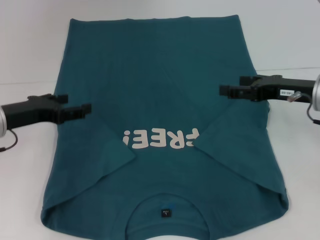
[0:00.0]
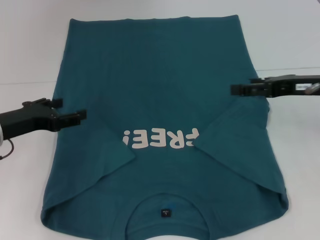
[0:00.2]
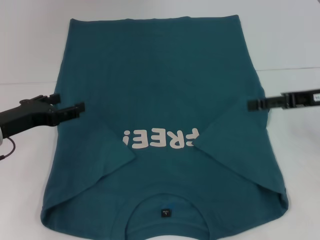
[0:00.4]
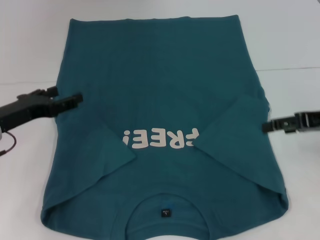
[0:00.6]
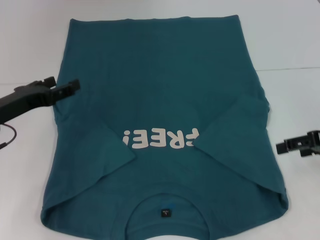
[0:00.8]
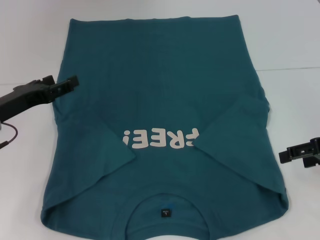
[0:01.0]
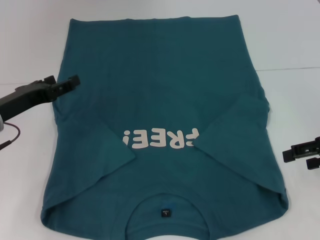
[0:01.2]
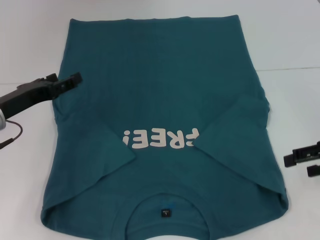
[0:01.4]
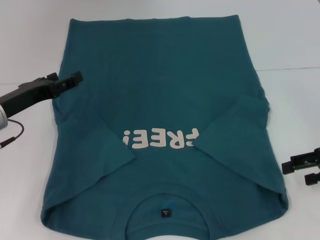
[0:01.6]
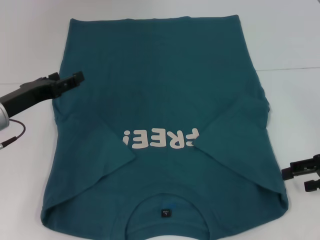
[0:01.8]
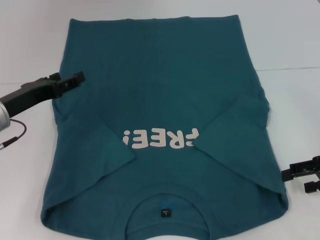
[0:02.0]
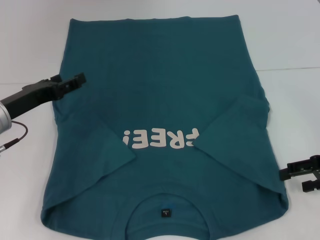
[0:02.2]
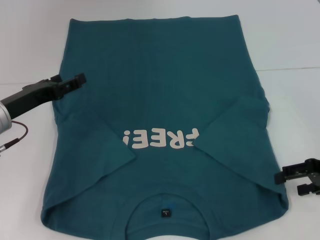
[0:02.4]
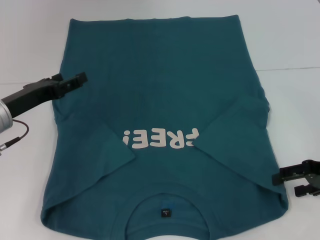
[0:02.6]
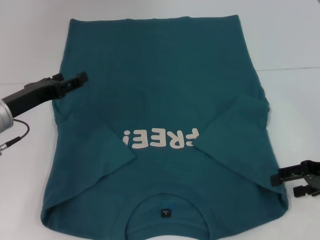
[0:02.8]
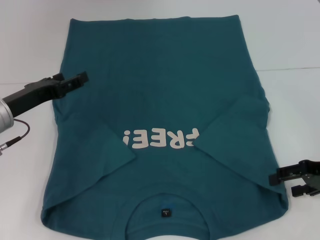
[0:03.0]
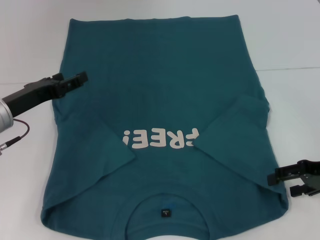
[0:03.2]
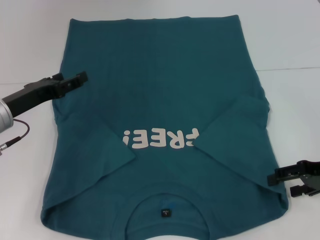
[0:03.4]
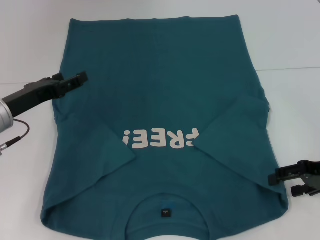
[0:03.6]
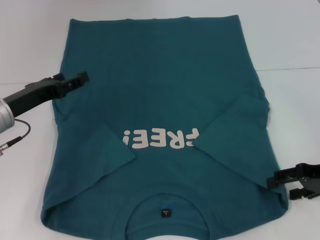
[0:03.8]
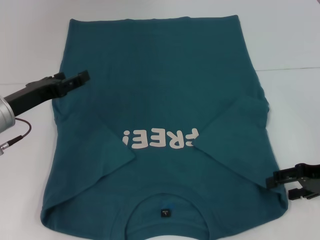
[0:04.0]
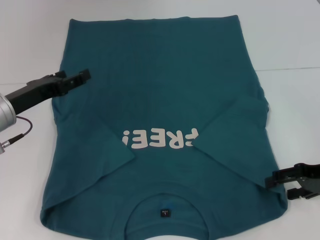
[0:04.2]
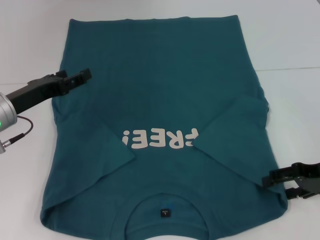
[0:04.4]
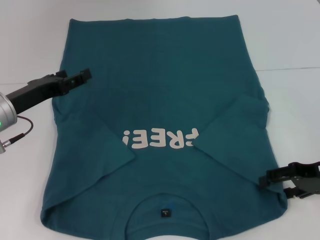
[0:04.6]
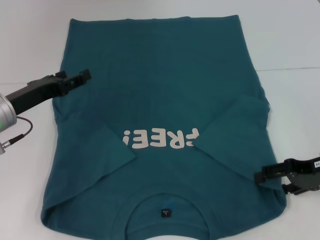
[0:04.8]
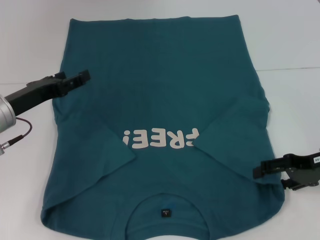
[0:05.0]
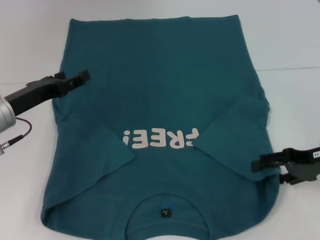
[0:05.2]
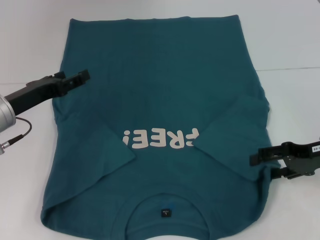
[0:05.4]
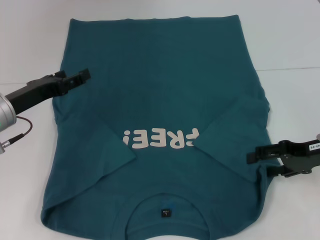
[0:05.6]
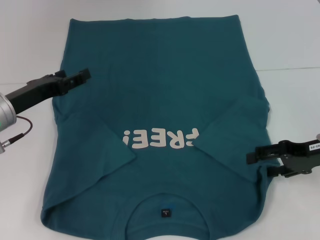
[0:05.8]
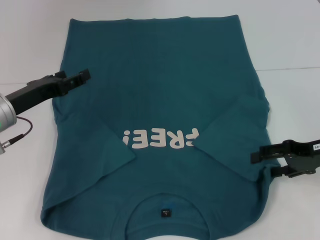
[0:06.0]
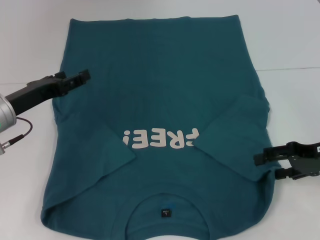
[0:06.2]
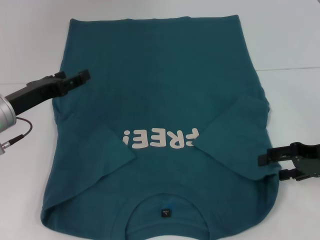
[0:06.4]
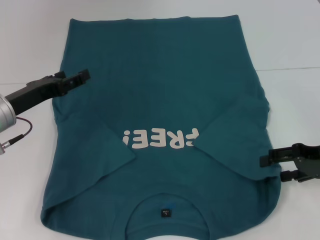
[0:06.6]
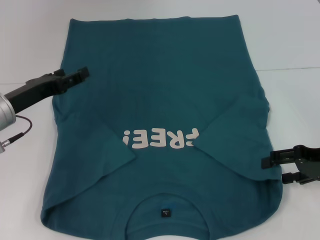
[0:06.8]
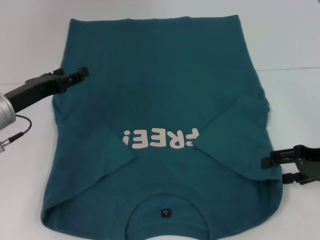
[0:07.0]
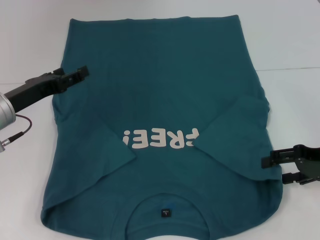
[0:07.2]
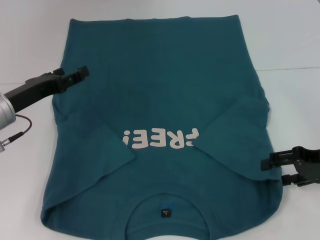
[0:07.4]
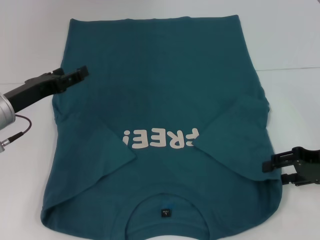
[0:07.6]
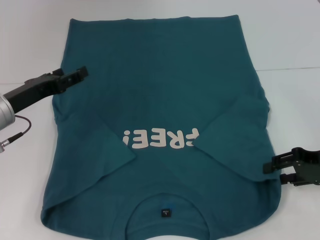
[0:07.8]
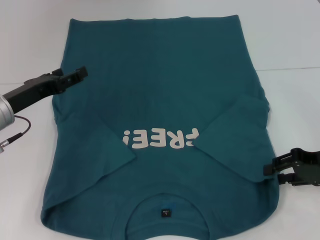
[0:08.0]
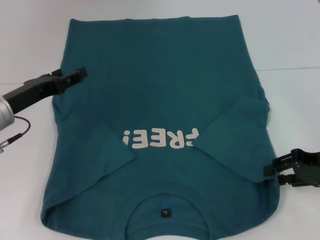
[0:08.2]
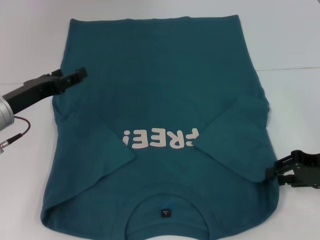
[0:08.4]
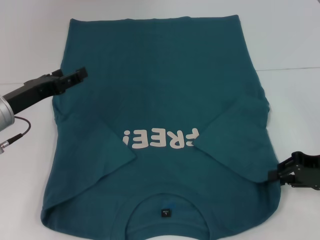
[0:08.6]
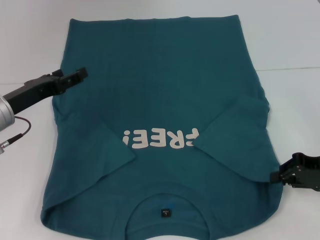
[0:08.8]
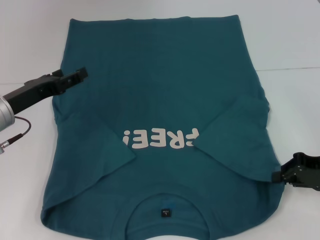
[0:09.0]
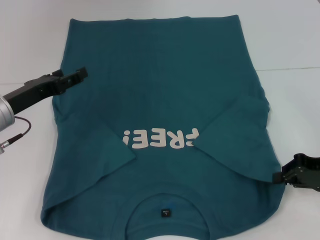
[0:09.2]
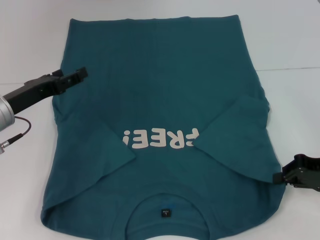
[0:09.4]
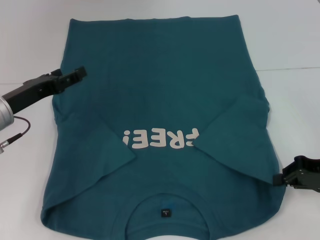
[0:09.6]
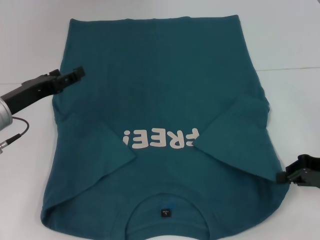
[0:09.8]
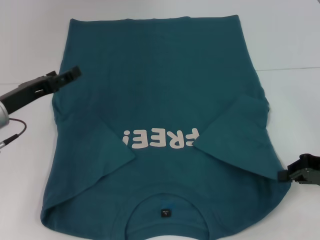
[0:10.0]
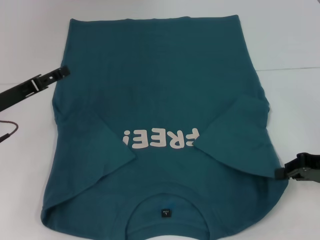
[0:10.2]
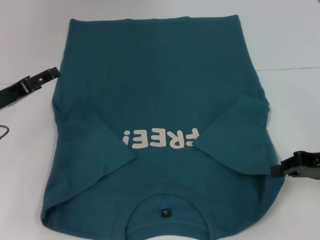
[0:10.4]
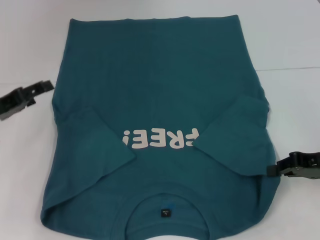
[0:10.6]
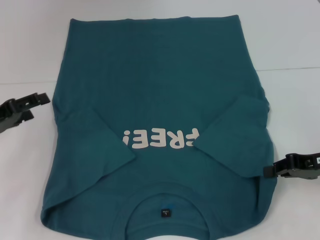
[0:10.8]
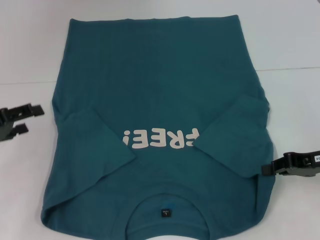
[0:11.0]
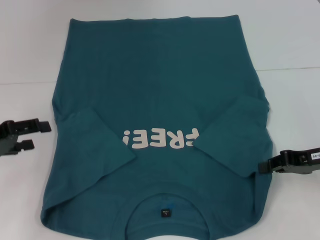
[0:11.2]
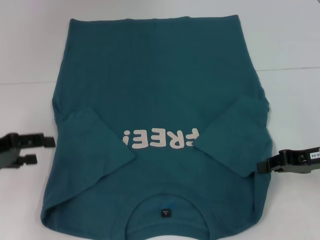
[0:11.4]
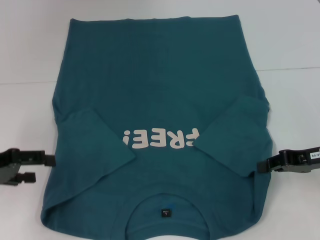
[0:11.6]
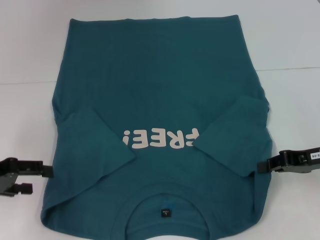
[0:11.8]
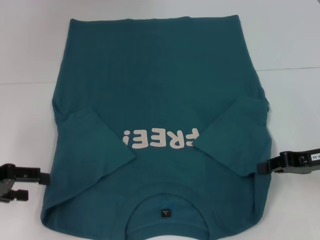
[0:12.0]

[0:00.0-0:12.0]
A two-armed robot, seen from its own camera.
Step, 0:00.0 to 0:09.2: Grab the bottom right corner with your right hand.
0:00.0 to 0:01.6: The right gripper heads to the right and backward, covering approximately 10 cm.
0:01.6 to 0:03.0: The grippers move only a little.
0:03.0 to 0:04.4: Neither gripper changes place.
0:04.4 to 0:07.6: The grippers make only small movements.
0:07.6 to 0:09.0: The right gripper closes its fingers.
0:09.0 to 0:10.4: There are only small adjustments of the grippers.
0:10.4 to 0:12.0: The left gripper moves backward, about 5 cm.

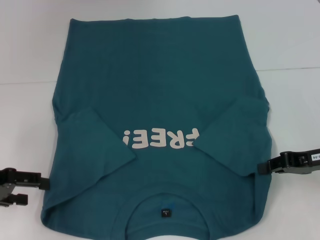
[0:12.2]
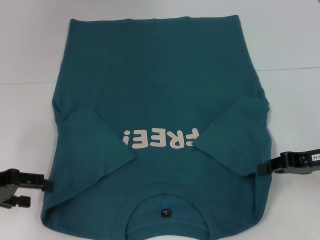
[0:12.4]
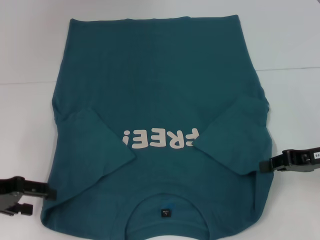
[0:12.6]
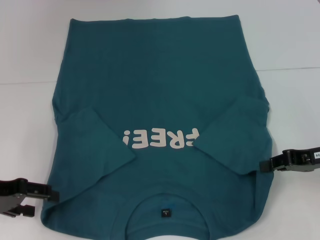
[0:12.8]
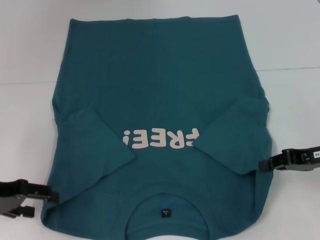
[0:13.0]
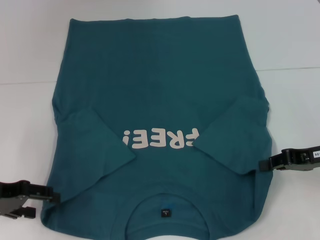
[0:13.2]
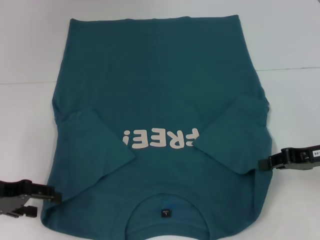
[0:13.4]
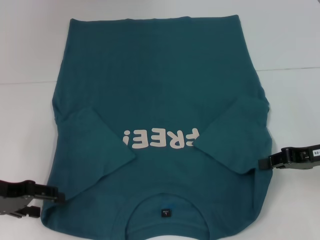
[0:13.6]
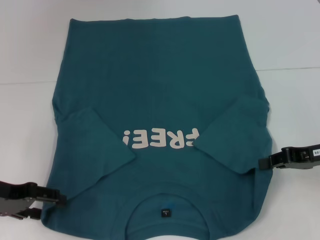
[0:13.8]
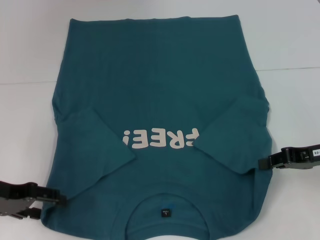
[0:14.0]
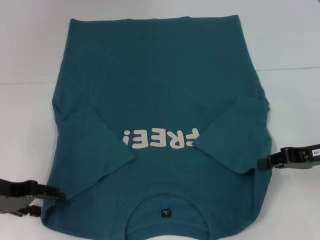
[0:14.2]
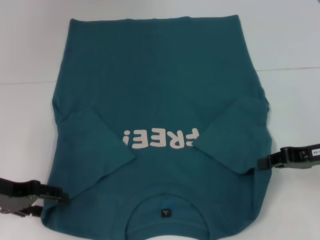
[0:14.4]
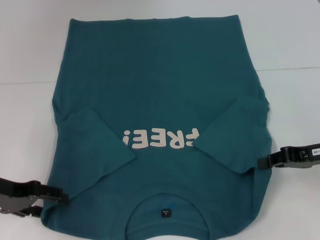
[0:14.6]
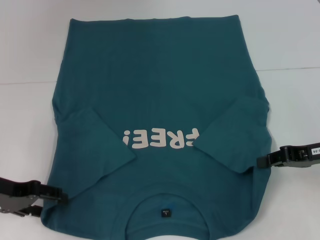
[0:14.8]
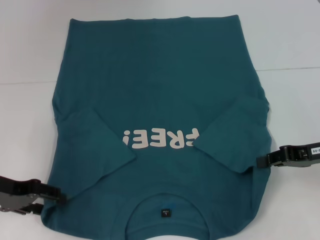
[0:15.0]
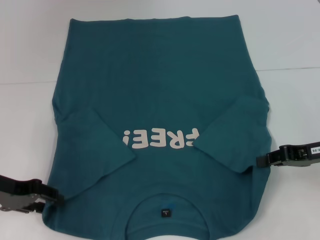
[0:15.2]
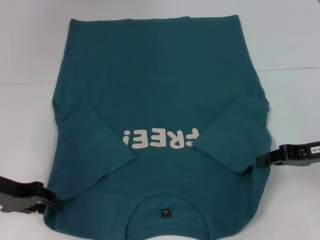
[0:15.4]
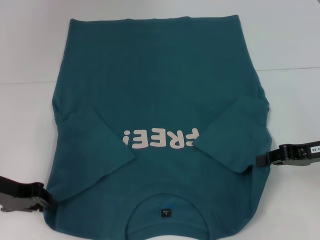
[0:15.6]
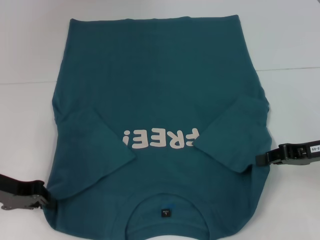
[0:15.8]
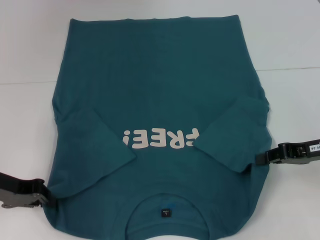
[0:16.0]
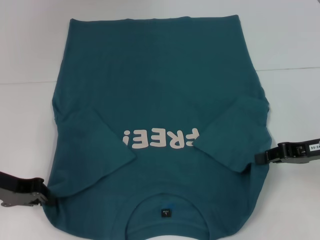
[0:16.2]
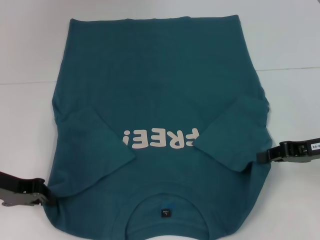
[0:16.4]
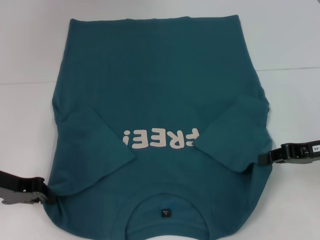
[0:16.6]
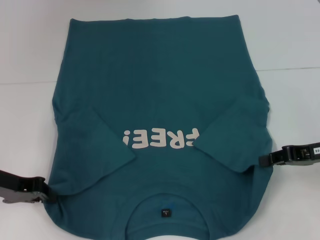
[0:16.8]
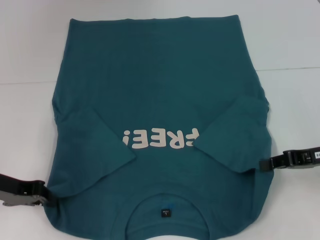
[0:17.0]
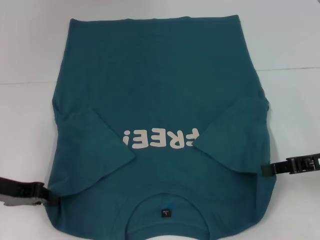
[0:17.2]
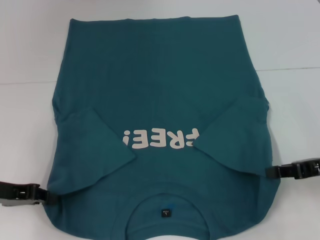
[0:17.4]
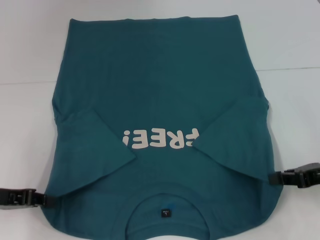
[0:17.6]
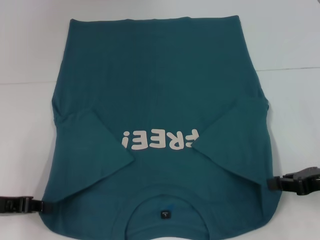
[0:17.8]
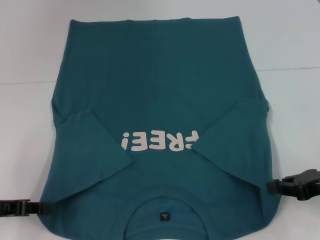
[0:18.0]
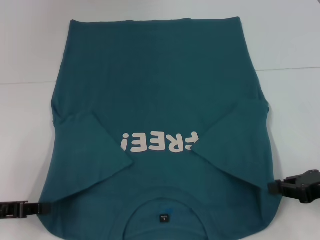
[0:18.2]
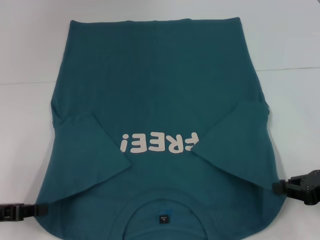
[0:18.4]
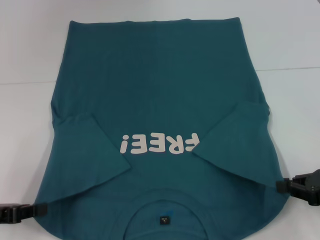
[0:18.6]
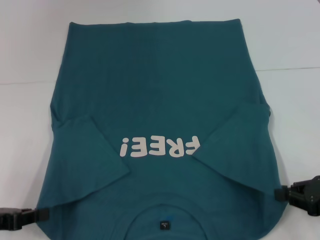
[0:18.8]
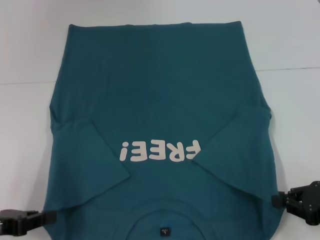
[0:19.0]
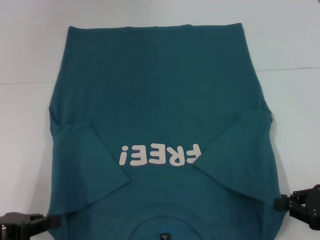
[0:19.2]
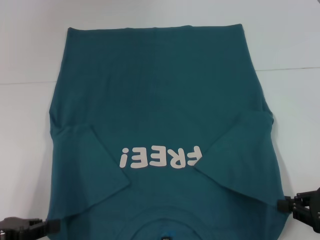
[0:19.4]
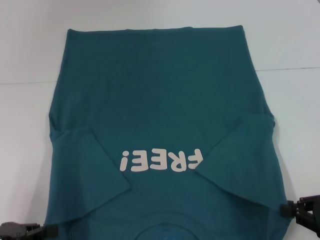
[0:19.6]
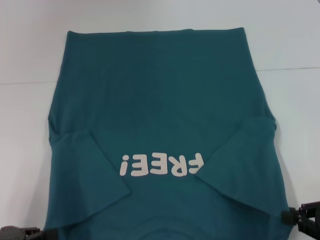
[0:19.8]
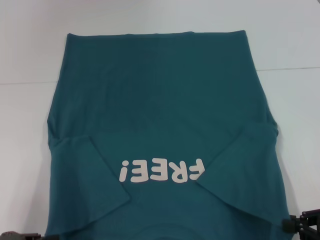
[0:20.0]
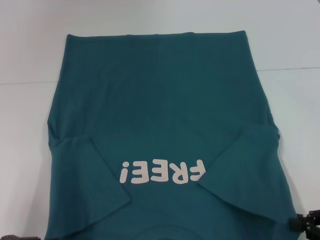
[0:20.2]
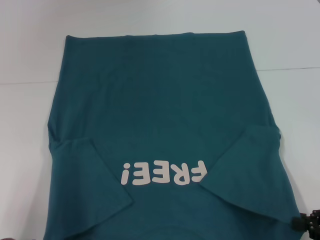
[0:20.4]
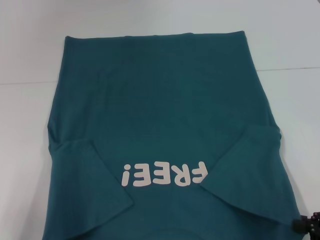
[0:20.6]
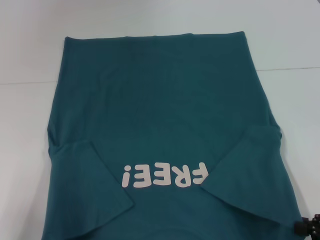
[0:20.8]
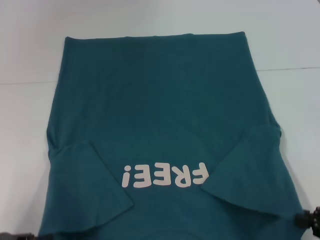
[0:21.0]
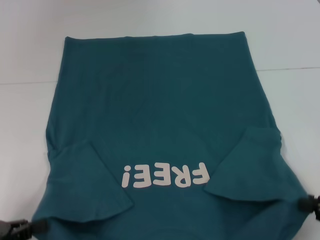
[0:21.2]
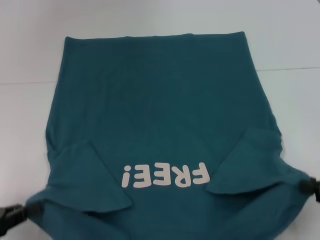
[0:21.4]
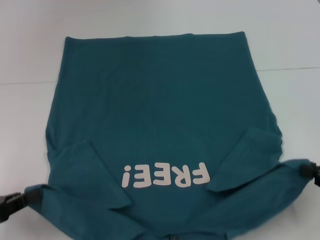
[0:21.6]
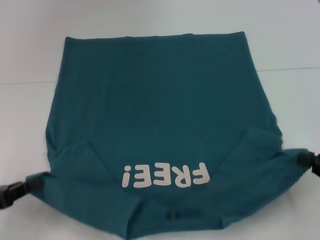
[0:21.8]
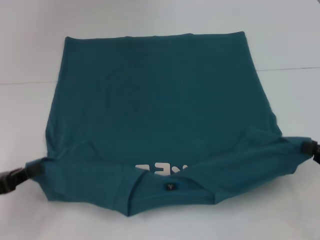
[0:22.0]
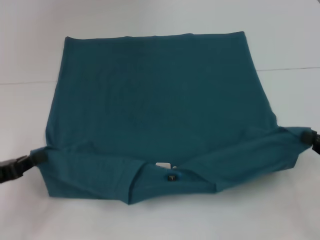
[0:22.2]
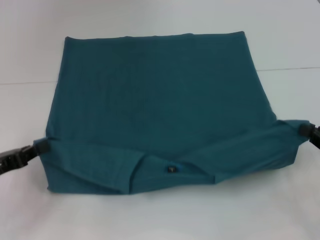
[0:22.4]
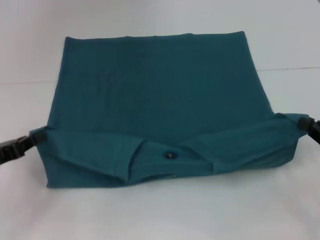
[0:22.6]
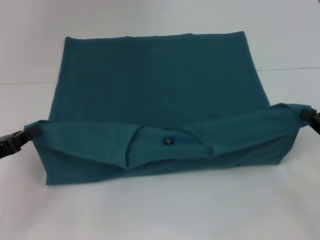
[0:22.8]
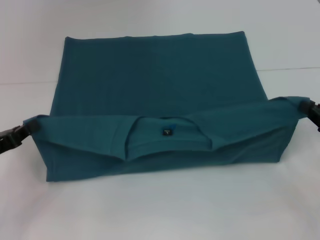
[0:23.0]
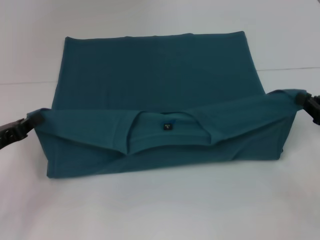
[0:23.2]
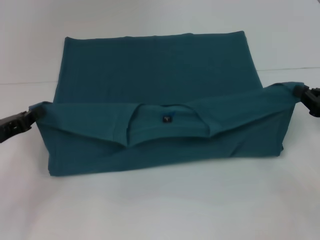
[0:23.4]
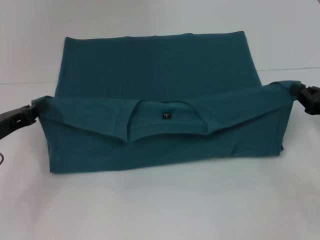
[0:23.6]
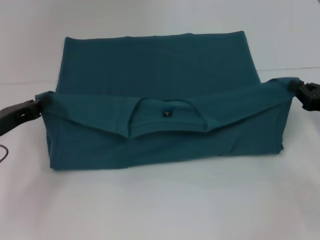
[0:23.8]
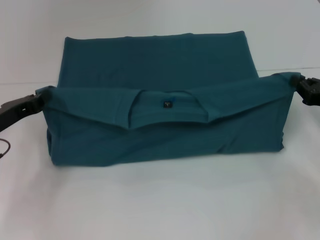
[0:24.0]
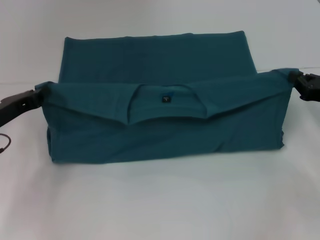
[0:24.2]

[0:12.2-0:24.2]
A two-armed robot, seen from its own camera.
Step, 0:12.2 to 0:16.0: Grab the bottom left corner with your left hand.
0:12.2 to 0:13.8: The grippers stay close to where they were, moving slightly.
0:13.8 to 0:15.2: Neither gripper changes place.
0:15.2 to 0:16.6: The left gripper closes.
0:16.6 to 0:18.2: Both grippers move backward, roughly 5 cm.
0:18.2 to 0:19.8: The grippers both shift backward by about 5 cm.
0:19.8 to 0:21.2: The grippers stay close to where they were, moving slightly.
0:21.2 to 0:22.6: Both grippers travel together forward, some 10 cm.
0:22.6 to 0:24.2: The grippers both shift forward by approximately 10 cm.
